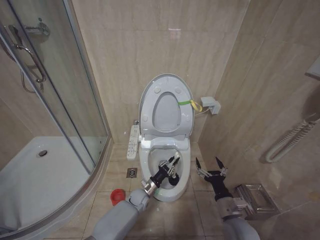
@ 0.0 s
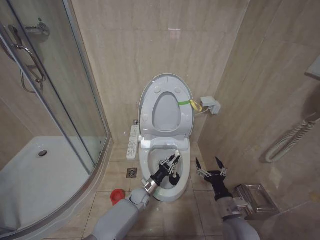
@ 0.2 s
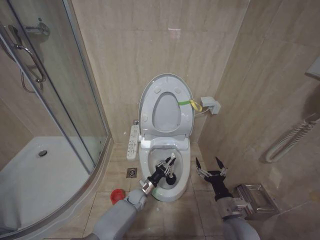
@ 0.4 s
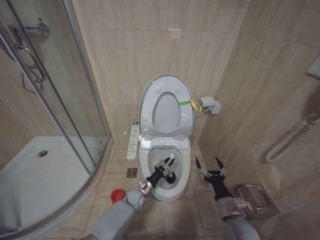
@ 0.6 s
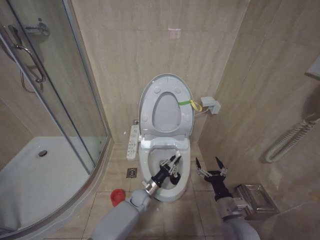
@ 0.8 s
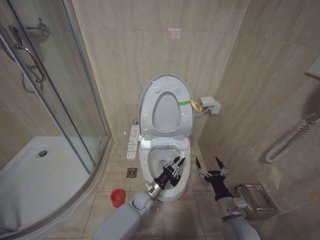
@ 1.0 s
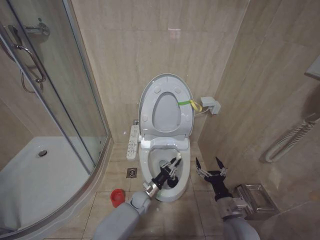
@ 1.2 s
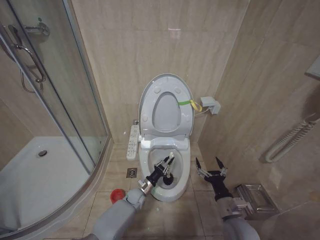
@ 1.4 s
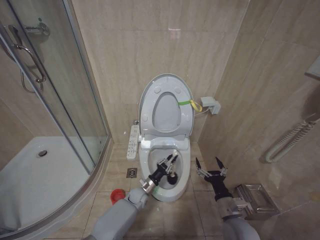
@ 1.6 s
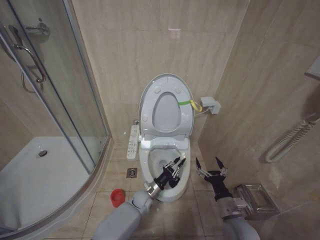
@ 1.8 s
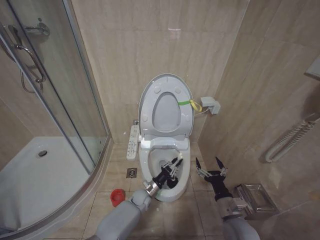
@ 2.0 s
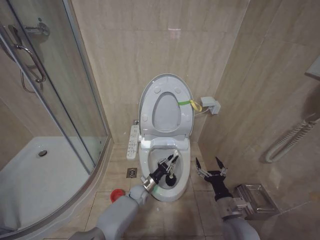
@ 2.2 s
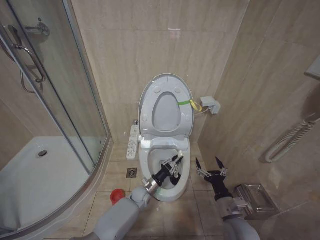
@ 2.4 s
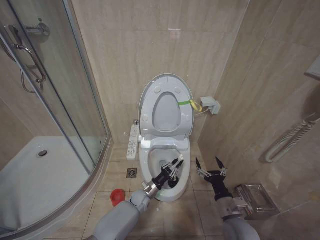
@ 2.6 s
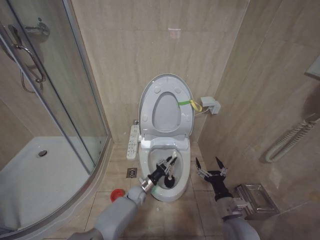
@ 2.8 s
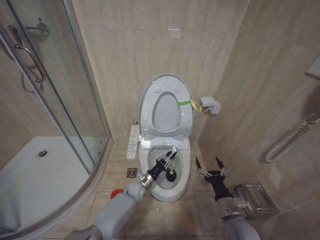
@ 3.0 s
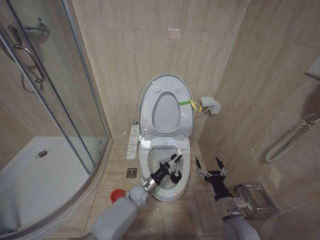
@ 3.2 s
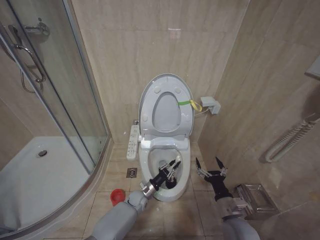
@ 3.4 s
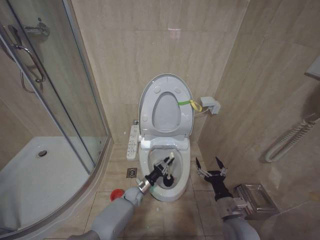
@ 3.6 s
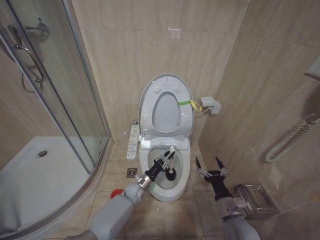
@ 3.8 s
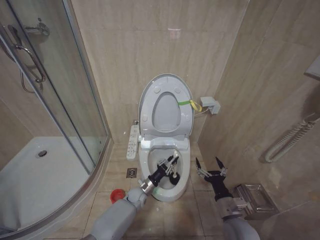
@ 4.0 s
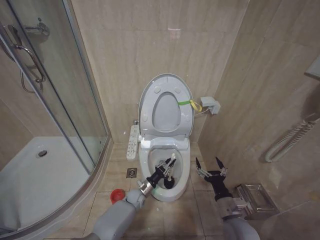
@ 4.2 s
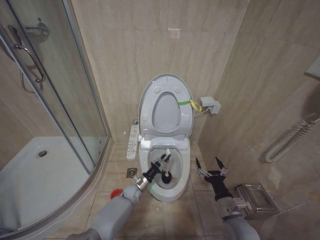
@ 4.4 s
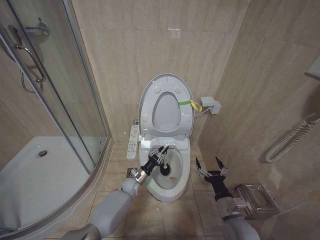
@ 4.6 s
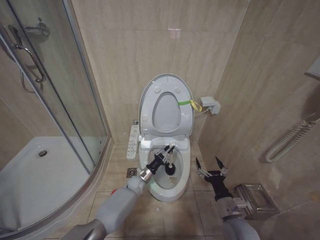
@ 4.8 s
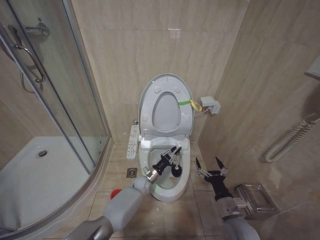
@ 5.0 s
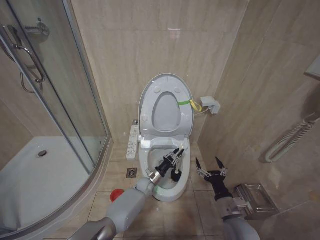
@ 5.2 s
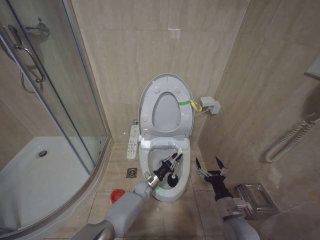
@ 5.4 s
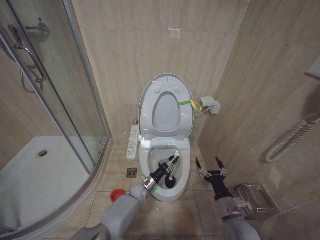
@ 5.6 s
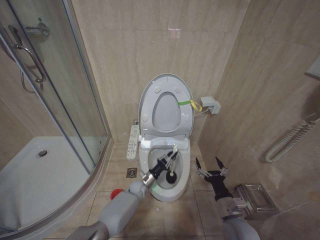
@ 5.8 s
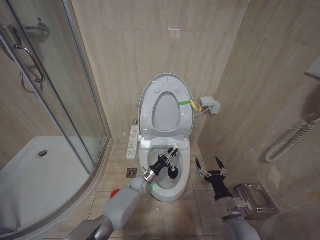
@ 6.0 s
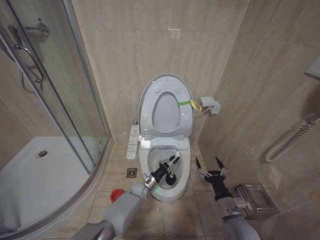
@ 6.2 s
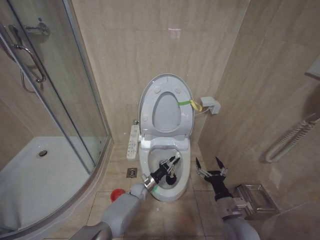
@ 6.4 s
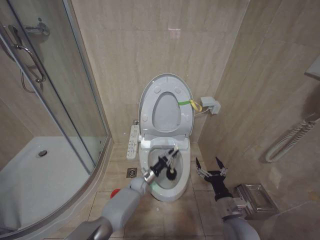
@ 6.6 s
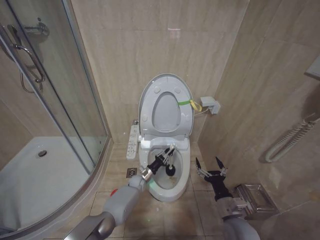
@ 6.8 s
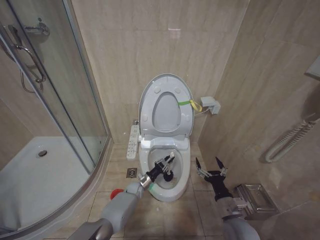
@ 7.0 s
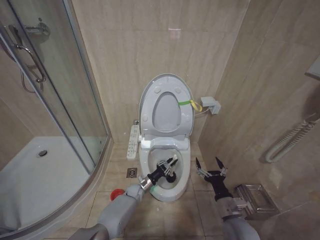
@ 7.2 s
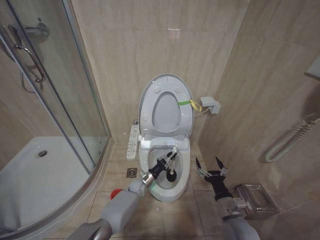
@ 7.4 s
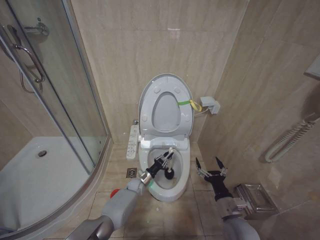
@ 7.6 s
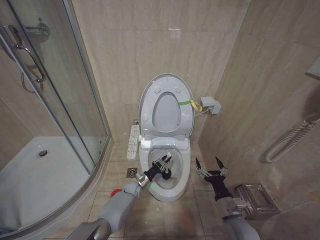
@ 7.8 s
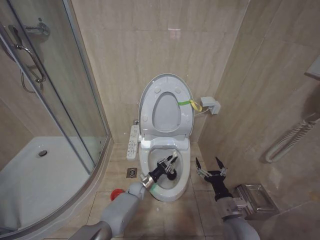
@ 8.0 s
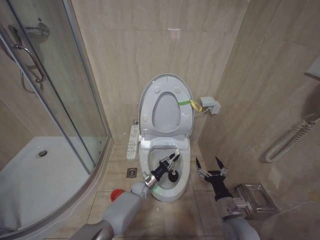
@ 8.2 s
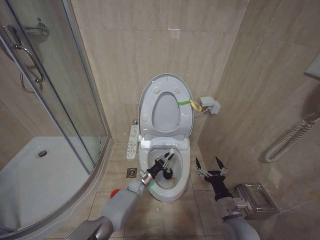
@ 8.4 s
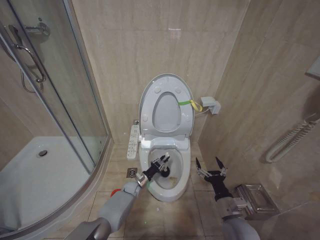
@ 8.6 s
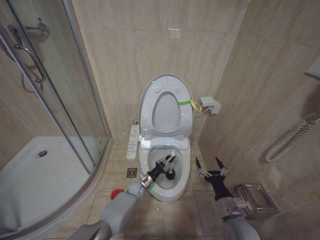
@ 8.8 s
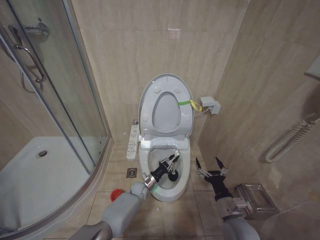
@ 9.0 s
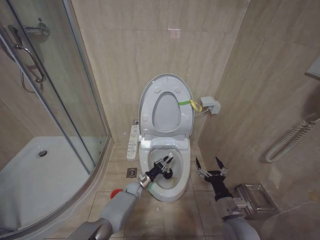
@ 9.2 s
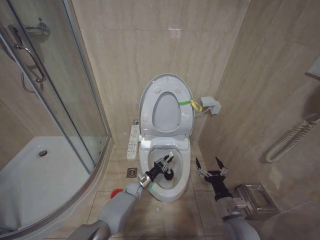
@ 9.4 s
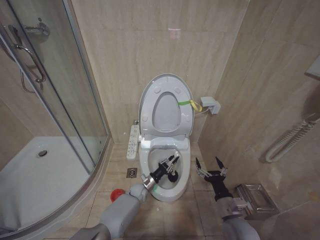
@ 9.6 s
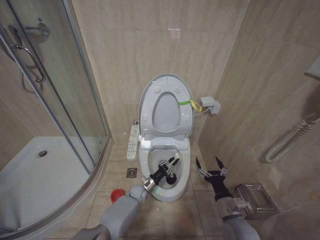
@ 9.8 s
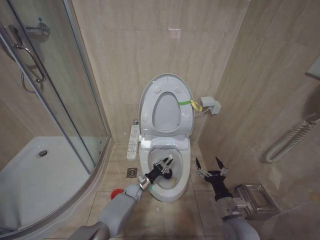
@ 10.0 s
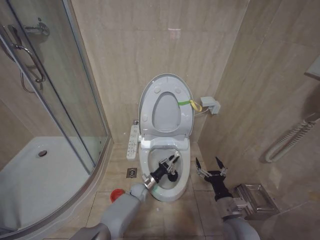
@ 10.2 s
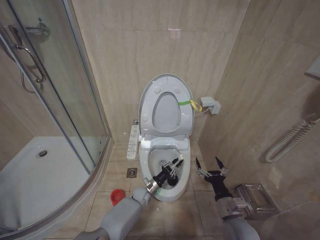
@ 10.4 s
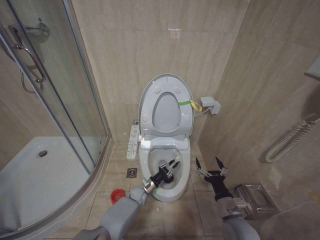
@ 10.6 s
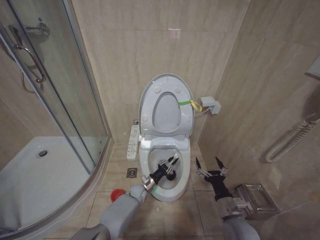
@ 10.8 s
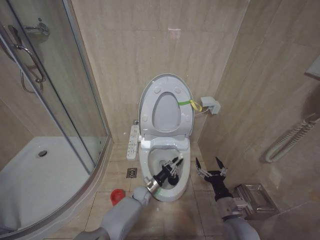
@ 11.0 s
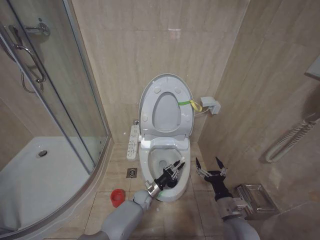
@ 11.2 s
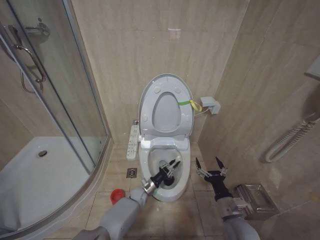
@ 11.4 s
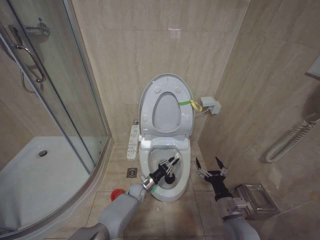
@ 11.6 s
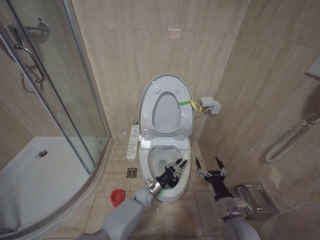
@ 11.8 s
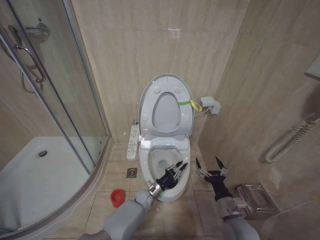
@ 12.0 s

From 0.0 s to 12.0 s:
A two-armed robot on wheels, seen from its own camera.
Task of the whole recording: Open the toilet lid, clean the toilet bowl with a toilet brush, close the toilet lid, and flush.
From 1.6 s to 4.4 s: The grippers move only a little.
From 4.4 s to 6.0 s: The left gripper changes place by some 5 cm.
From 7.6 s to 10.4 s: The grippers stay close to where they were, moving slightly.
From 10.4 s to 12.0 s: The grippers make only small movements.

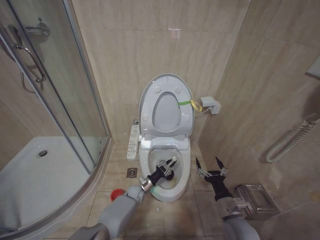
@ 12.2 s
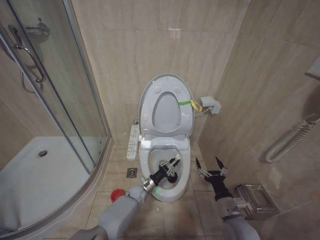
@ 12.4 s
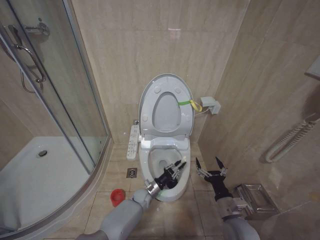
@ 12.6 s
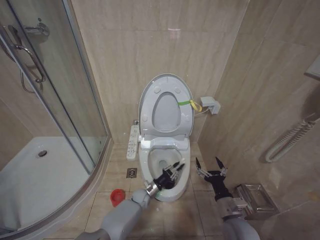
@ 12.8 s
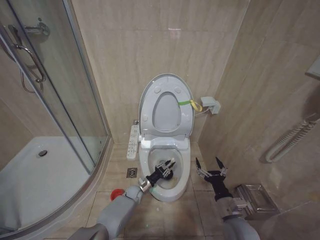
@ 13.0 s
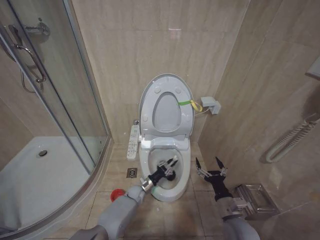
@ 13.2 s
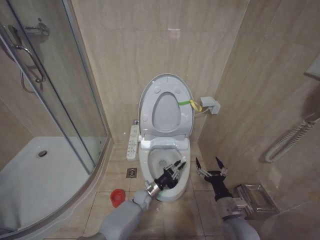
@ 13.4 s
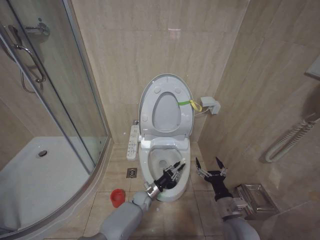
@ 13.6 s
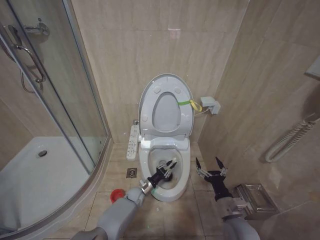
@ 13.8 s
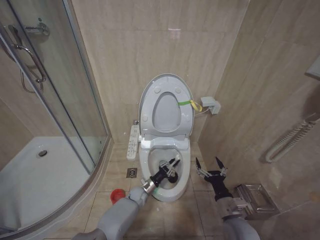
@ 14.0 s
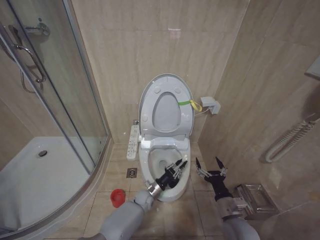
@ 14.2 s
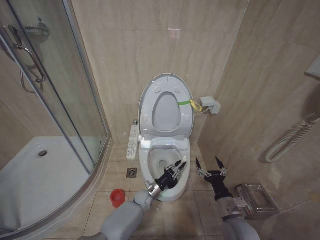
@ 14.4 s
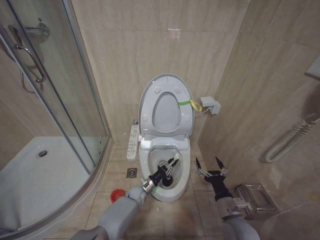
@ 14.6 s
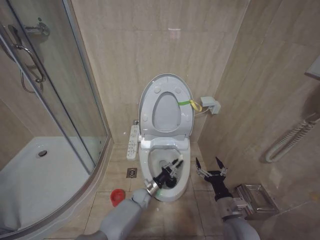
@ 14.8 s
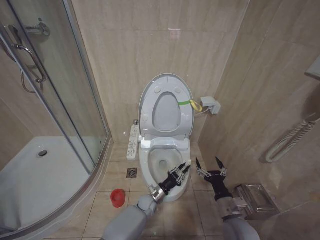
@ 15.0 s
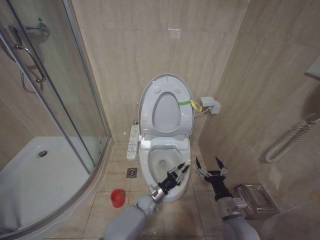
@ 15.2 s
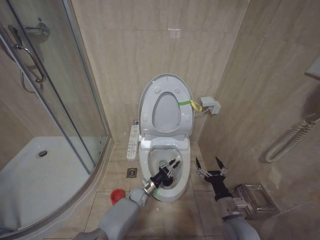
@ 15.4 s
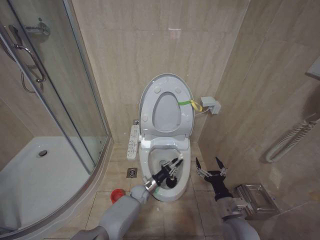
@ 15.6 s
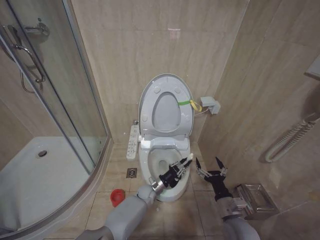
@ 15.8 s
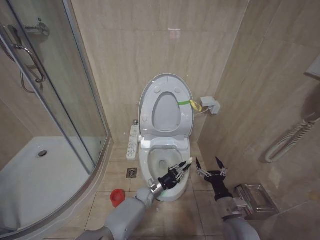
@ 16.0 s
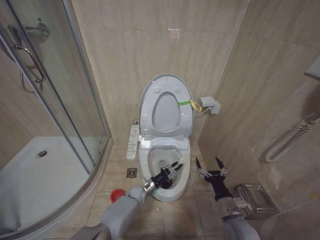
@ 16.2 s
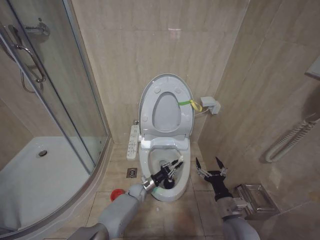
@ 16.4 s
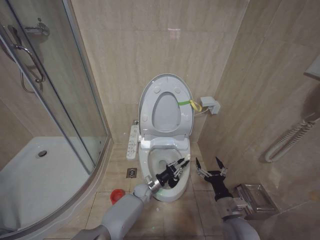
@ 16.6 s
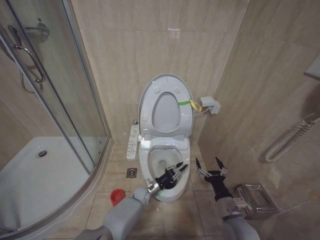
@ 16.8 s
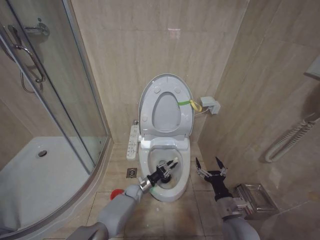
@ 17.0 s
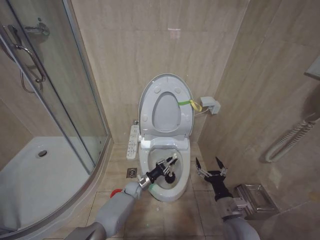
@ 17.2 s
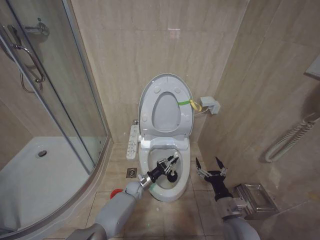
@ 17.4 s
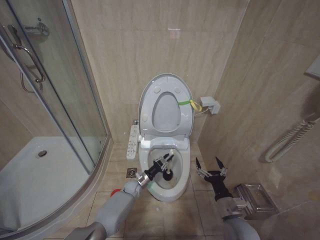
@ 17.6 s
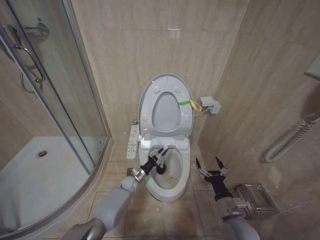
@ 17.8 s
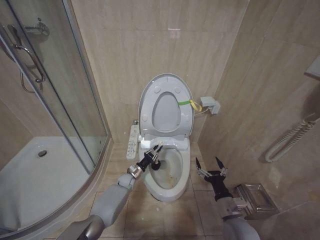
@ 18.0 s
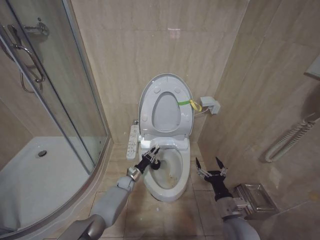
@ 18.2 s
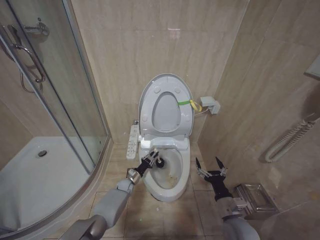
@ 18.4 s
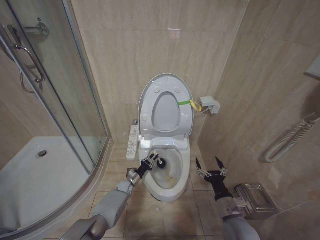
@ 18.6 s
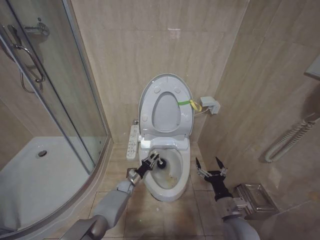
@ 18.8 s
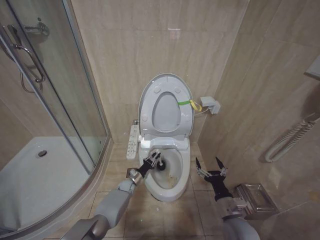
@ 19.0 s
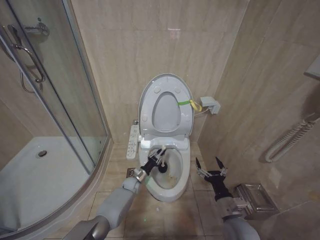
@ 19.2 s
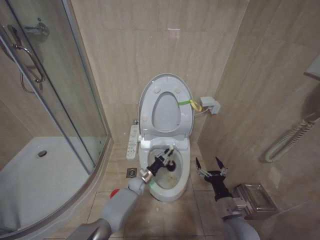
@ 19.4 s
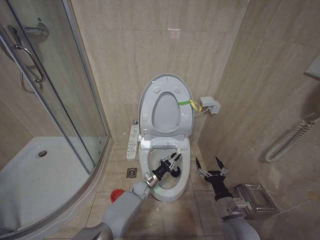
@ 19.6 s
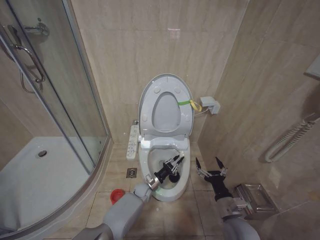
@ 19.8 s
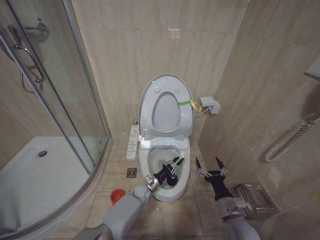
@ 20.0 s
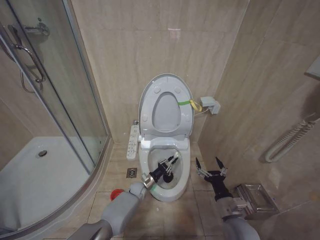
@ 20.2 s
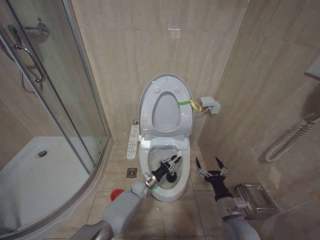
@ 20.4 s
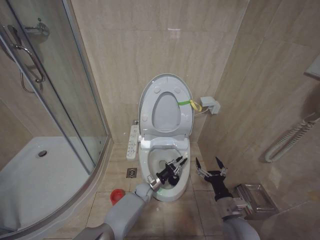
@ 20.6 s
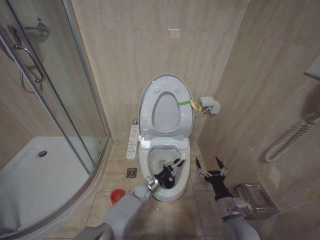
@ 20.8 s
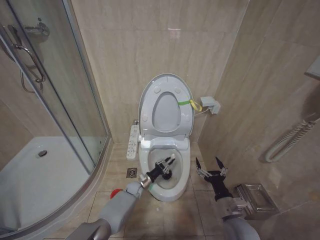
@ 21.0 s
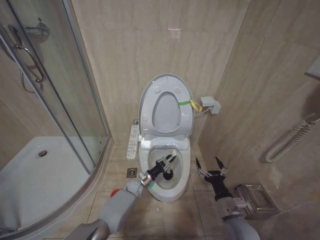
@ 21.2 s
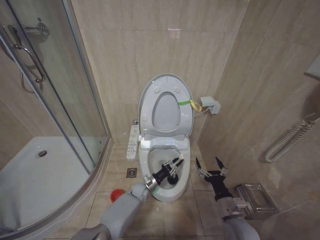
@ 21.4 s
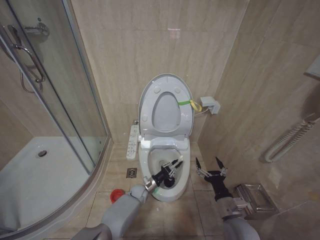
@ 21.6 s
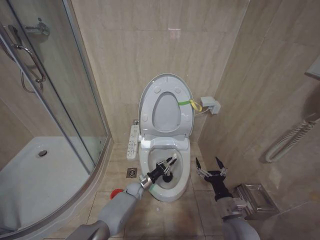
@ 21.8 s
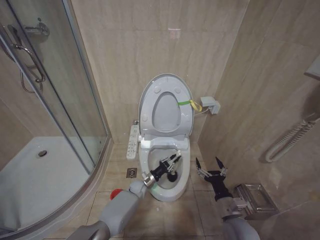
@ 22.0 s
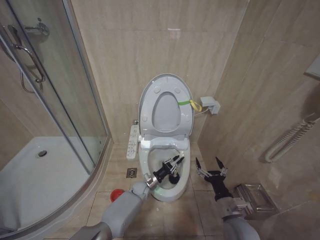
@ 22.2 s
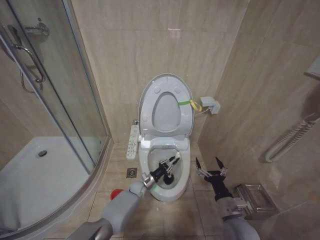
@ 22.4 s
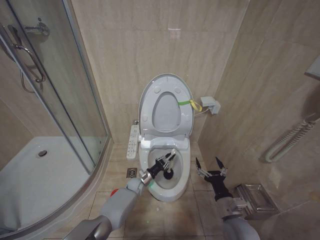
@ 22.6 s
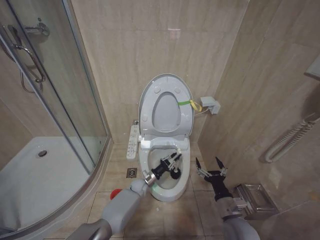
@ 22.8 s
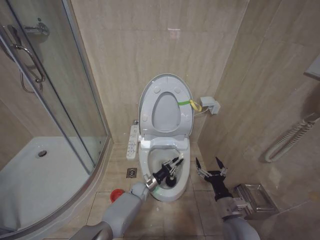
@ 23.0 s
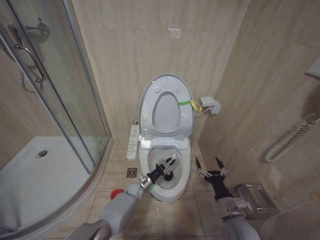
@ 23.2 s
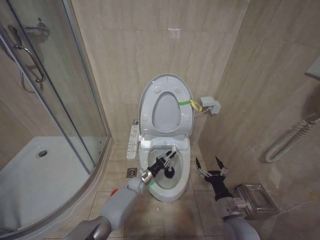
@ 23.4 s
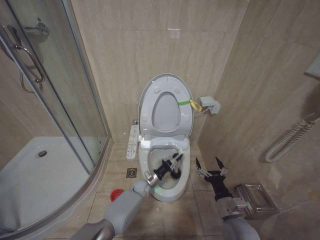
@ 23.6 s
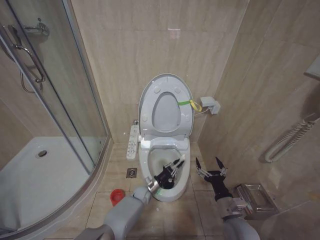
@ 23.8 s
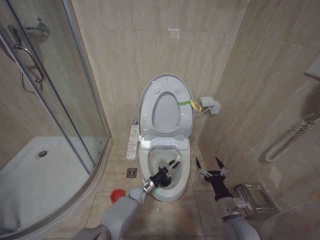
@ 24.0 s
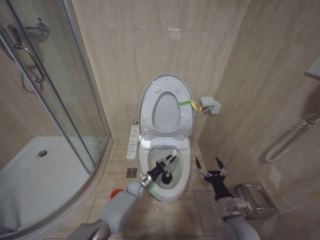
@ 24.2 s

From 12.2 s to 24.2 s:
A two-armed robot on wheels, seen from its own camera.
Task of the whole recording: Open the toilet lid, clean the toilet bowl with a toilet brush, close the toilet lid, and flush.
From 13.8 s to 15.2 s: The left gripper is displaced to the right by about 5 cm.
From 15.2 s to 16.6 s: The left gripper moves forward, about 5 cm.
From 16.6 s to 18.2 s: The left gripper moves to the left and forward, approximately 10 cm.
From 18.2 s to 19.8 s: The left gripper moves to the right, about 10 cm.
From 19.8 s to 21.2 s: The left gripper moves to the left, roughly 5 cm.
From 22.6 s to 24.2 s: There are only small adjustments of the grippers.
